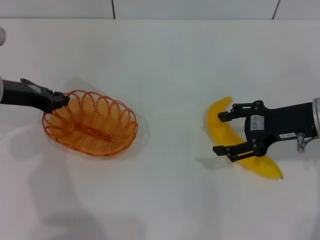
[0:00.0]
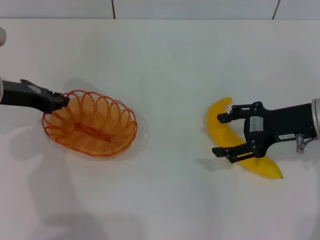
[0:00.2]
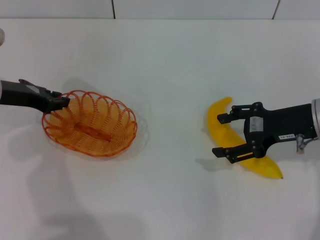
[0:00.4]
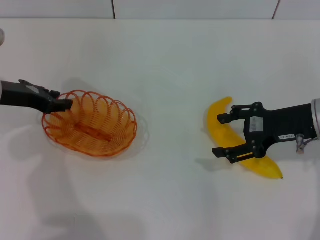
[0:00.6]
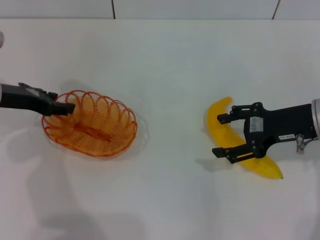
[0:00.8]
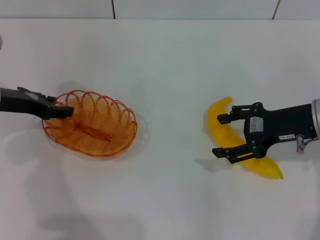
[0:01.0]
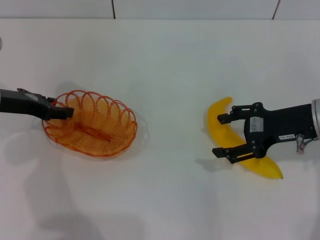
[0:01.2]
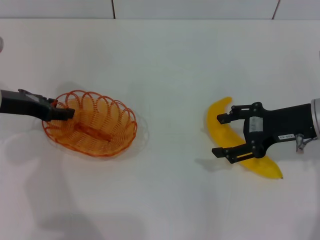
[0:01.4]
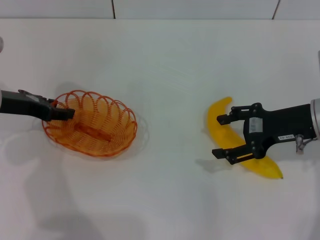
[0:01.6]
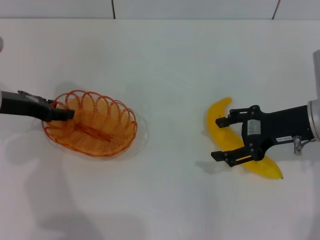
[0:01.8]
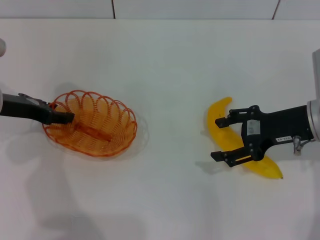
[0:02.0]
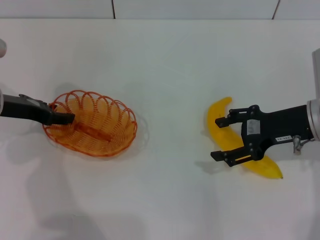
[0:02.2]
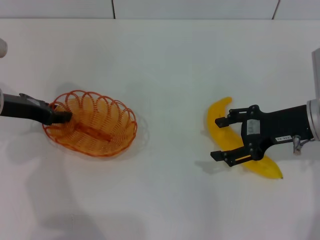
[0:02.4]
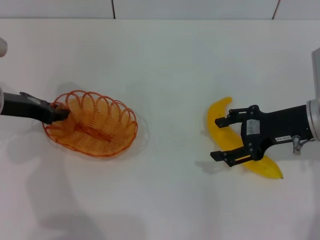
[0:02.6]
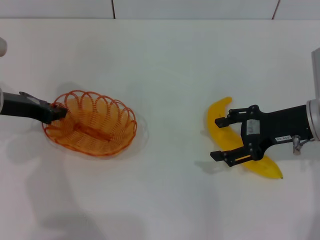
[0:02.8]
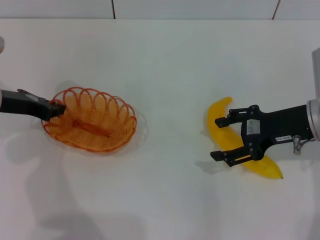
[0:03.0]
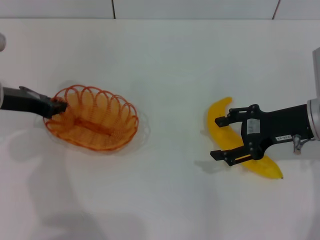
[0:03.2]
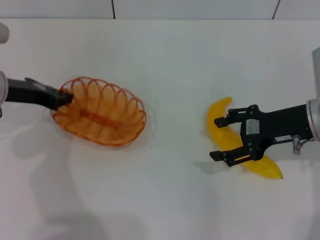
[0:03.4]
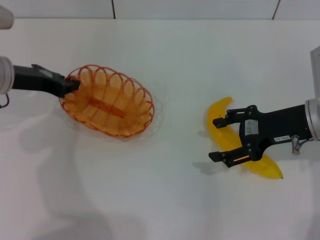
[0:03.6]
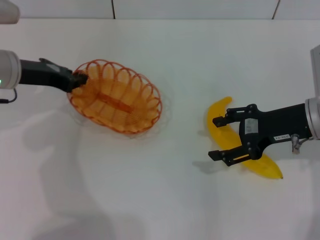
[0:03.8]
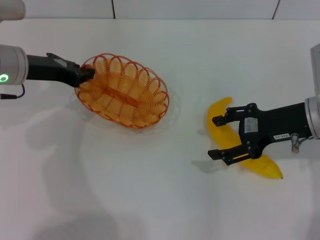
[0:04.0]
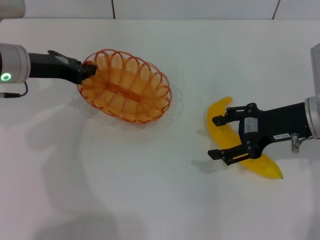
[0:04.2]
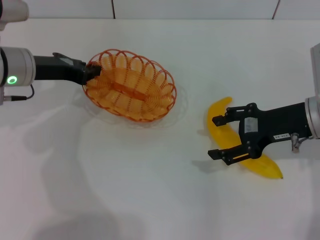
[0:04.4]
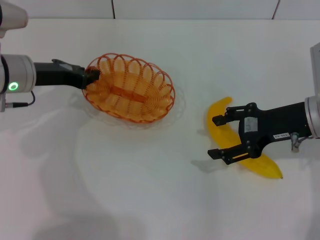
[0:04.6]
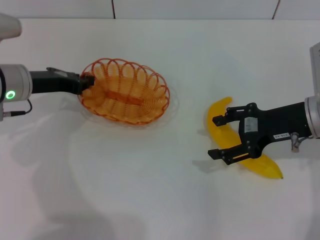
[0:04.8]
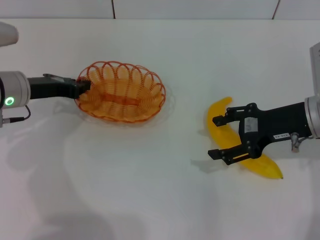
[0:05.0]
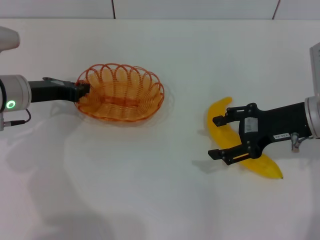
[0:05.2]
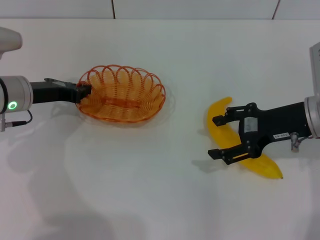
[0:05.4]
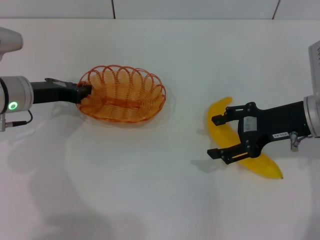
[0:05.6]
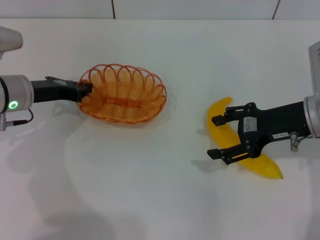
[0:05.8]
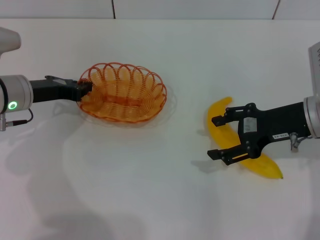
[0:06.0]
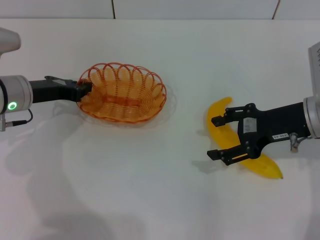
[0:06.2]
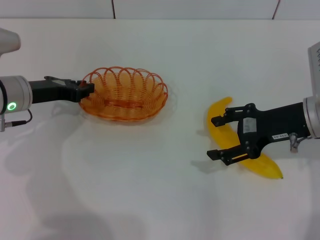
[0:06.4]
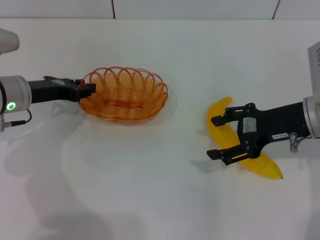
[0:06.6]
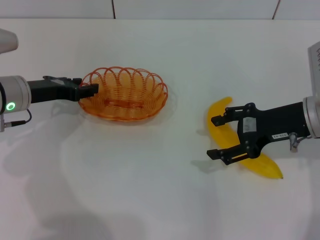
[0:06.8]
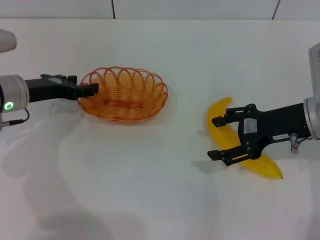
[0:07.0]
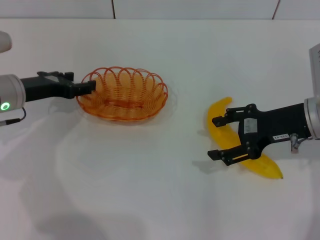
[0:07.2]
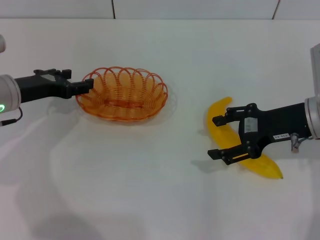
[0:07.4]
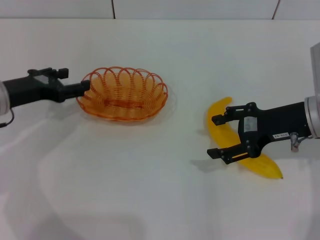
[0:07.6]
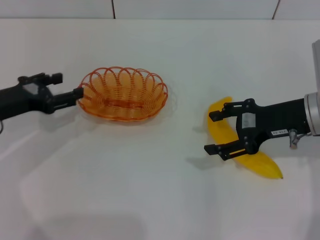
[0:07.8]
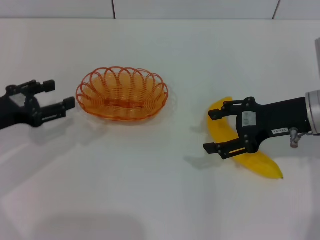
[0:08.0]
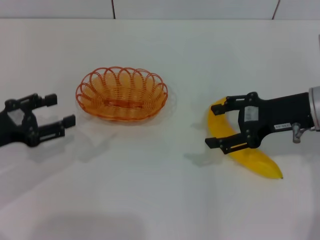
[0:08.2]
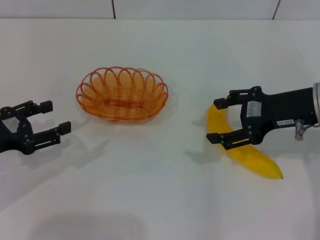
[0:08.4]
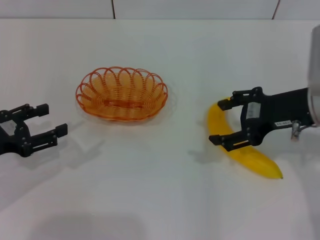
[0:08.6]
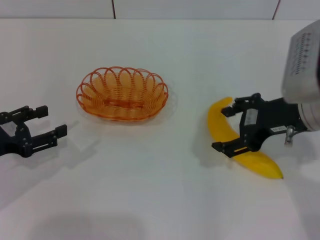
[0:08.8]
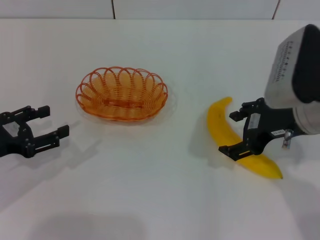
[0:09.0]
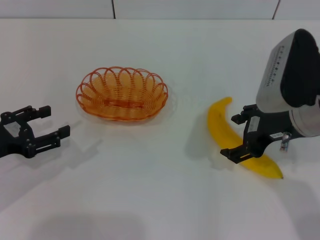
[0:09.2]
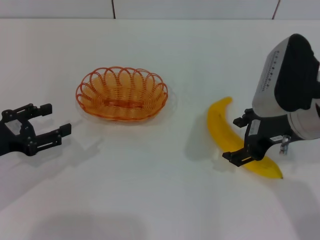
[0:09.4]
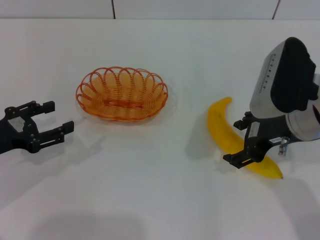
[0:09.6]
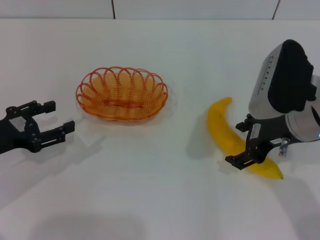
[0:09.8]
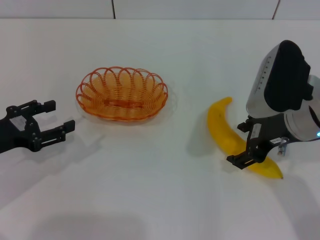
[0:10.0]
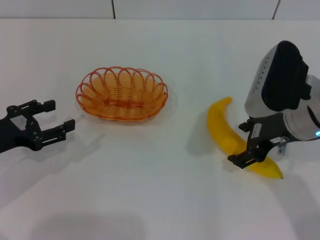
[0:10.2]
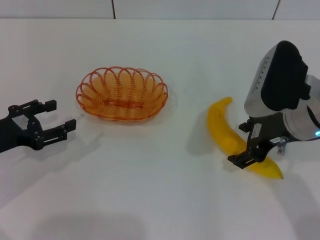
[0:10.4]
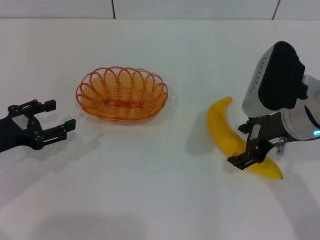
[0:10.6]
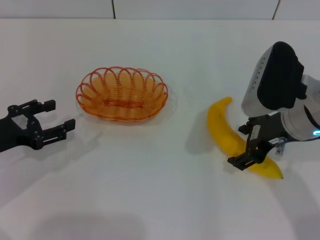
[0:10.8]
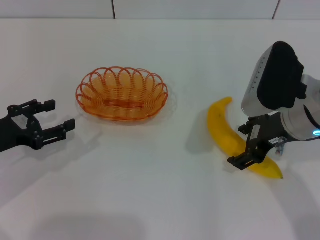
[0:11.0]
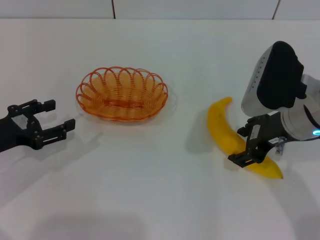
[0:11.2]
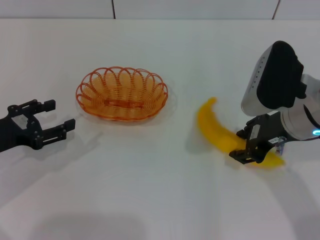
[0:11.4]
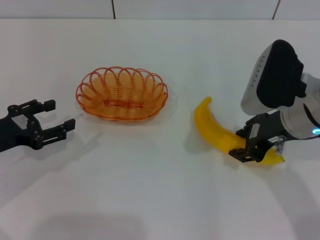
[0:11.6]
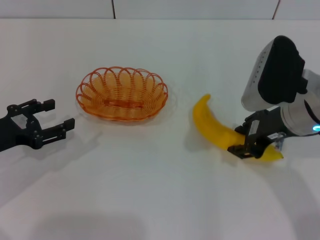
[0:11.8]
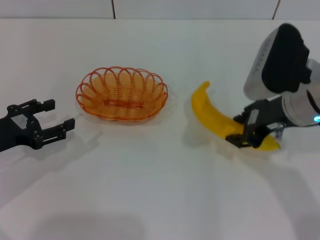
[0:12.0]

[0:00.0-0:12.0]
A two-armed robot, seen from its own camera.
Step, 0:00.0 to 0:04.4: Pick up the basket with the left gripper.
Step, 0:04.8 to 0:07.4: Place the basket in the center of view with the left gripper.
0:00.0 to 0:01.6: The left gripper opens its fingers.
0:01.6 to 0:03.0: The left gripper closes its fingers.
0:03.0 to 0:04.4: The left gripper changes place by approximately 5 cm.
0:04.4 to 0:06.0: The grippers make only small movements.
0:06.0 to 0:07.6: The left gripper opens up.
0:07.6 to 0:09.0: The right gripper changes place by about 5 cm, while the left gripper heads backward, covering approximately 10 cm.
0:09.0 to 0:10.4: The grippers make only small movements.
0:10.4 to 0:12.0: The right gripper closes its fingers.

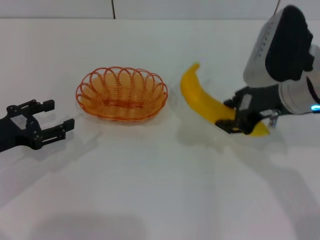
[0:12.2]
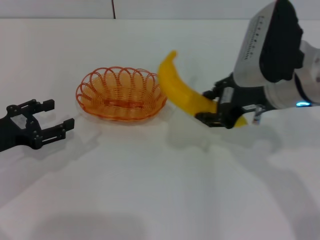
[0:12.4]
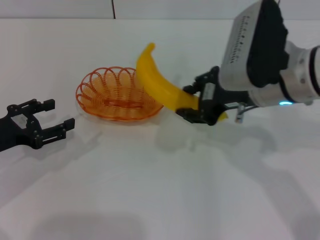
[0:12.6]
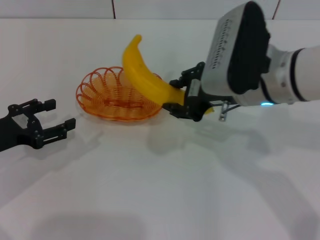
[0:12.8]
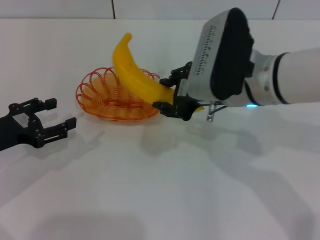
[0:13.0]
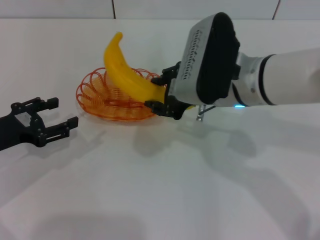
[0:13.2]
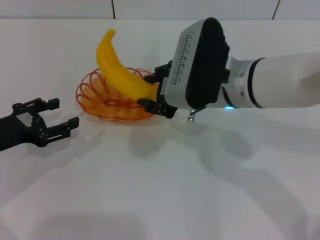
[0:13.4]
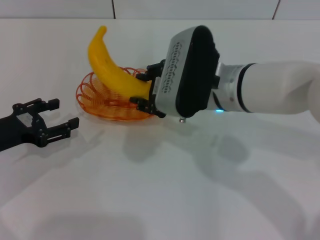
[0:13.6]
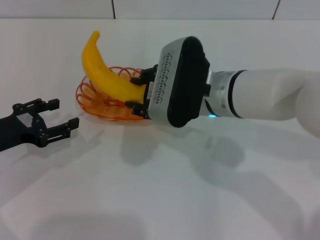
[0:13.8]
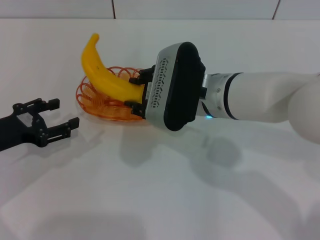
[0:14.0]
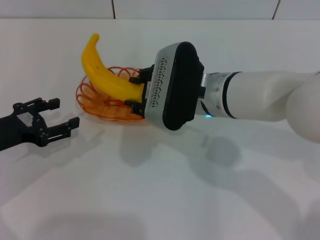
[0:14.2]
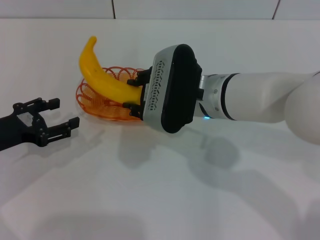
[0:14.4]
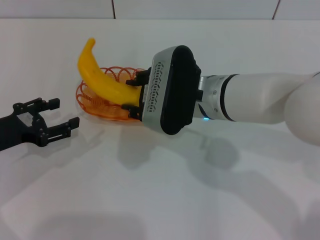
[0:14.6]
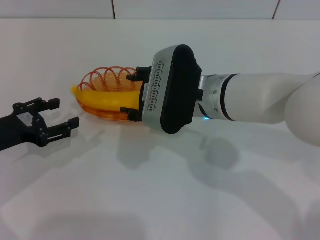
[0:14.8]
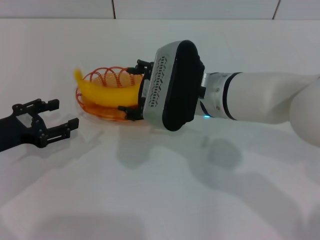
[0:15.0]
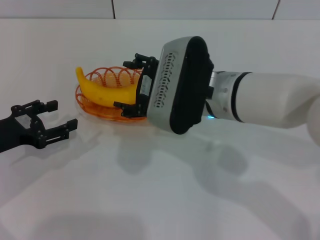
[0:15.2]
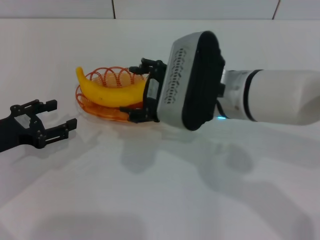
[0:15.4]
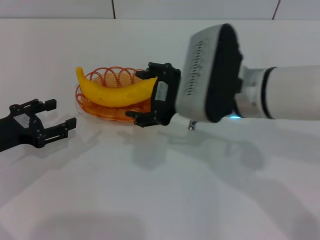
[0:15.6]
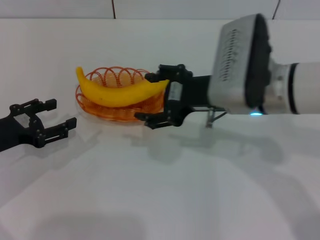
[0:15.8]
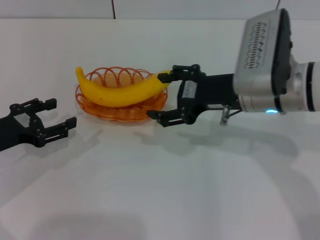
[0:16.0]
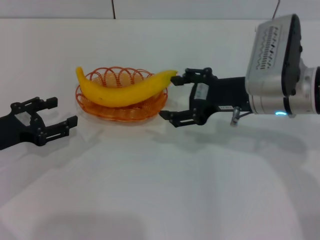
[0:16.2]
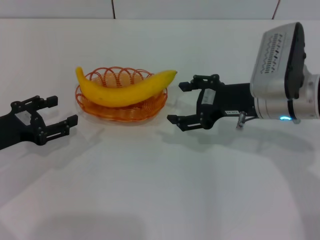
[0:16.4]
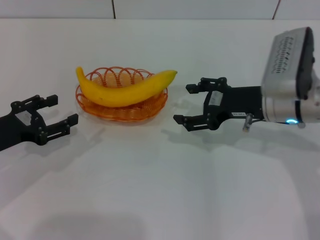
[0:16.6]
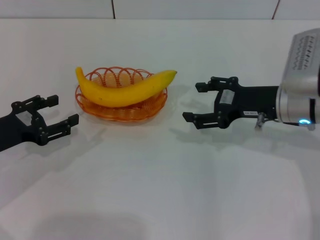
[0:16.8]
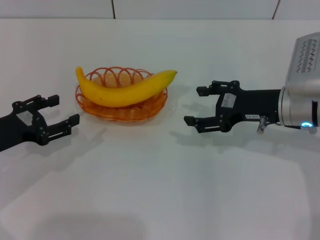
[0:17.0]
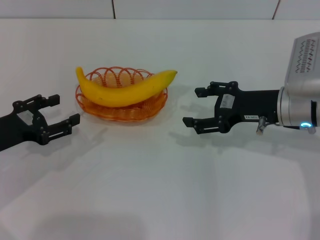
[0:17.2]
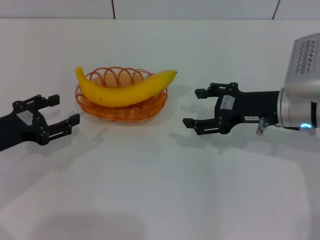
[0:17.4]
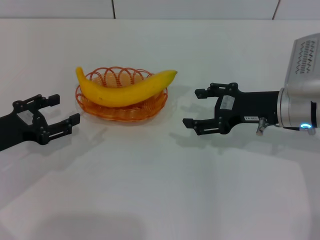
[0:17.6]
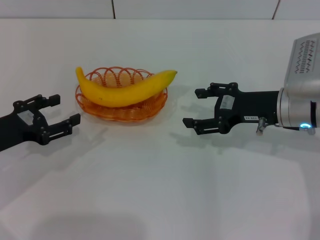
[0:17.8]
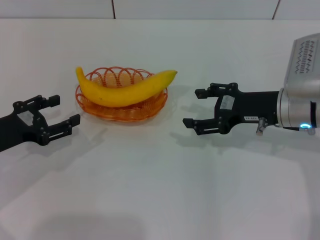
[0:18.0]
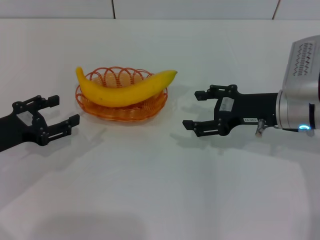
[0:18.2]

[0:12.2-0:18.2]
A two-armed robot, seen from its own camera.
Step, 0:12.4 to 0:15.6: Place the banana into the basket with the right gripper.
0:12.2 to 0:13.8: The right gripper goes approximately 10 cm to the left.
0:13.8 to 0:15.2: The right gripper opens its fingers.
0:15.2 to 0:16.6: The right gripper is displaced to the right by roughly 10 cm.
0:16.6 to 0:18.2: The grippers stay close to where they were, moving slightly.
